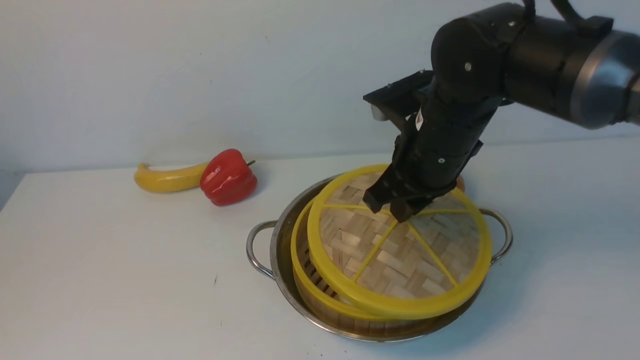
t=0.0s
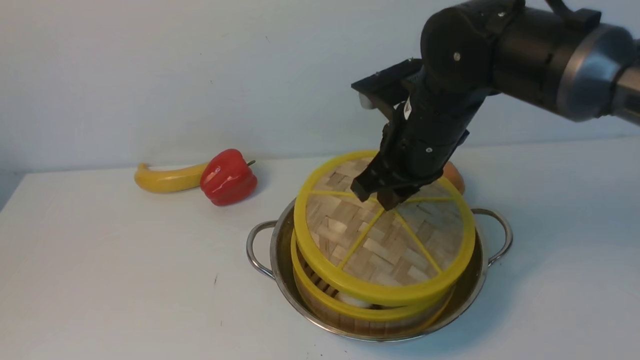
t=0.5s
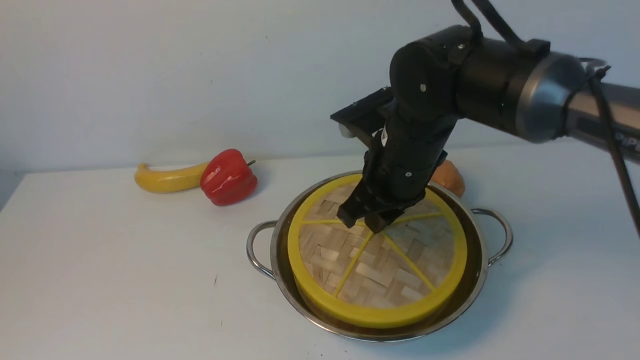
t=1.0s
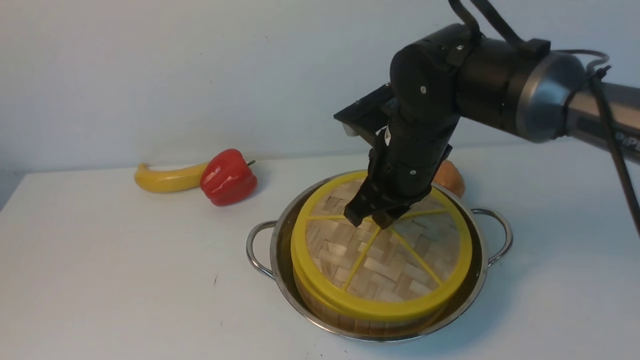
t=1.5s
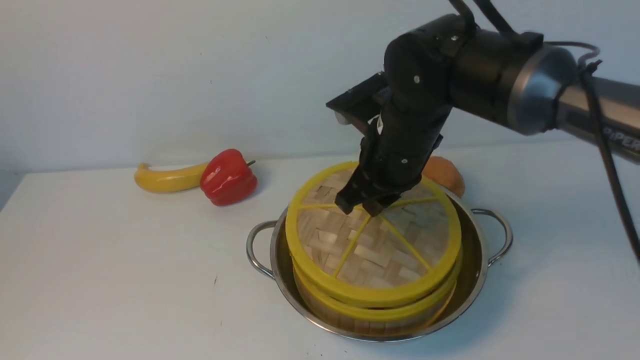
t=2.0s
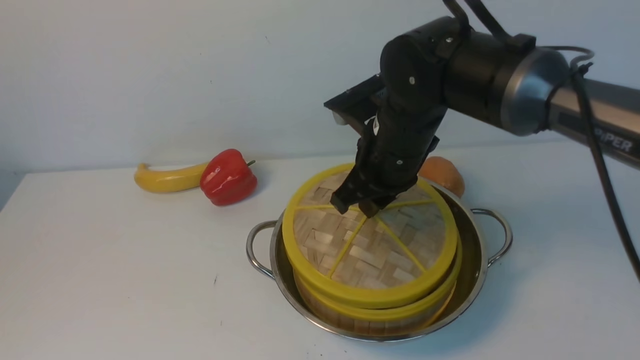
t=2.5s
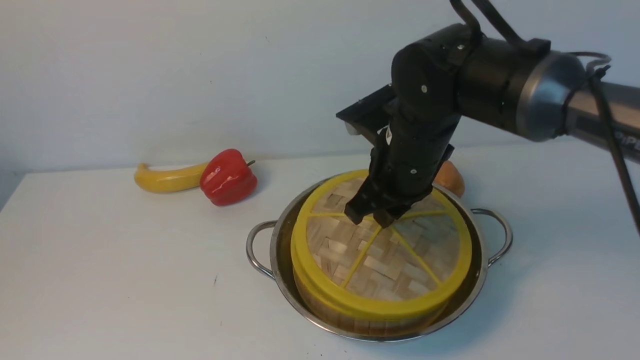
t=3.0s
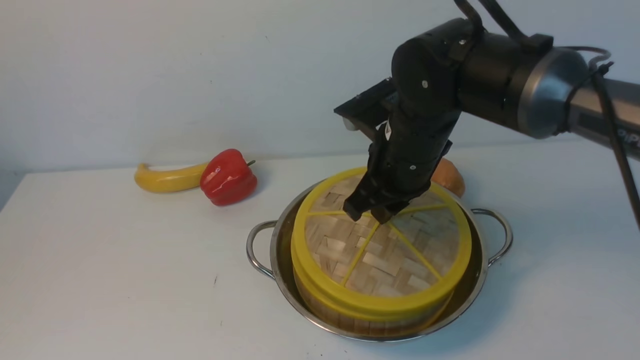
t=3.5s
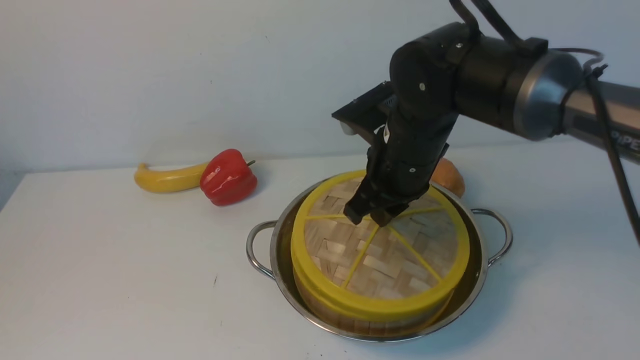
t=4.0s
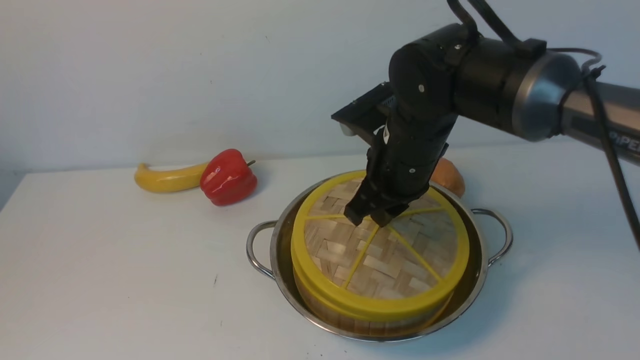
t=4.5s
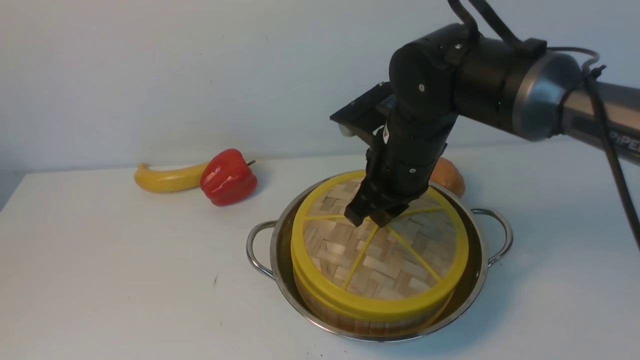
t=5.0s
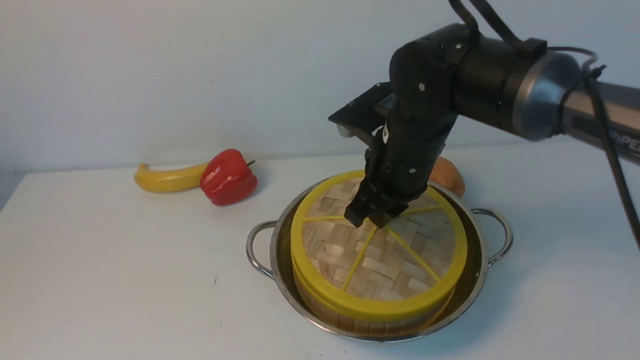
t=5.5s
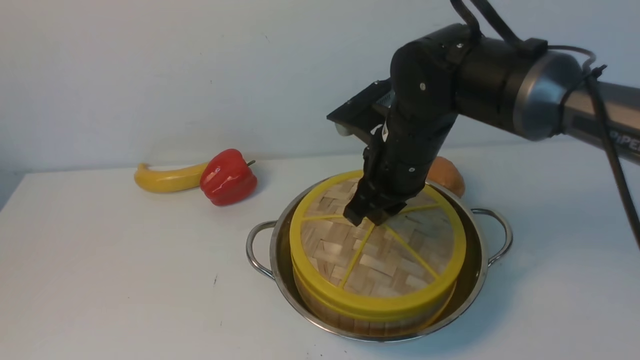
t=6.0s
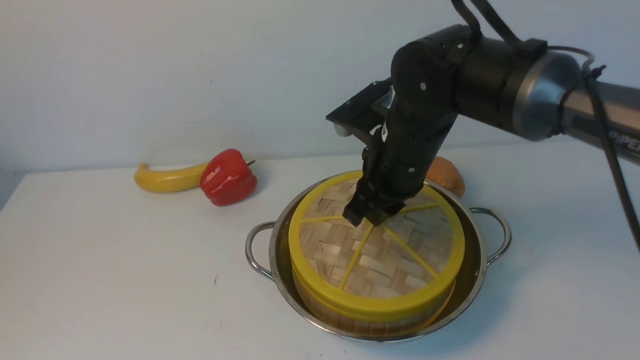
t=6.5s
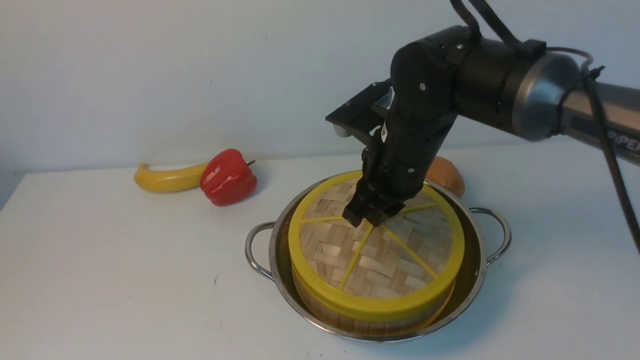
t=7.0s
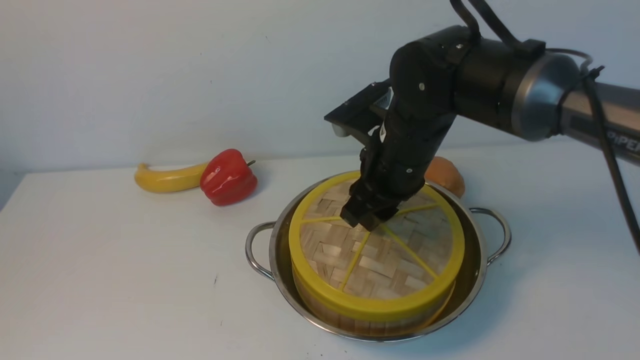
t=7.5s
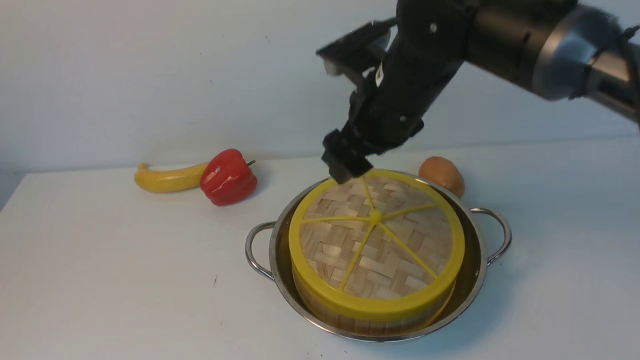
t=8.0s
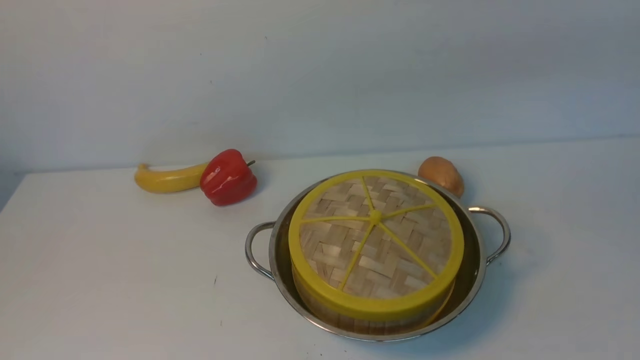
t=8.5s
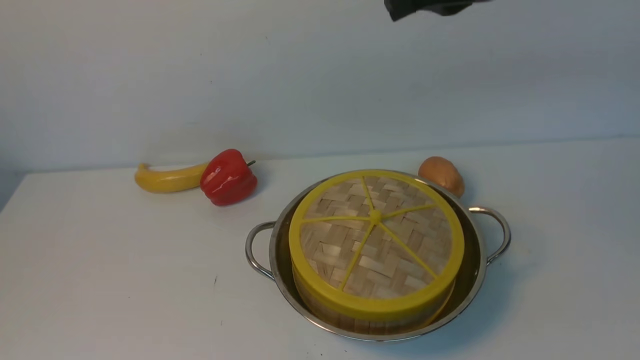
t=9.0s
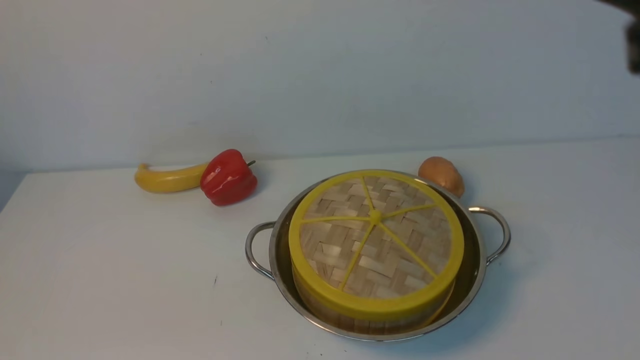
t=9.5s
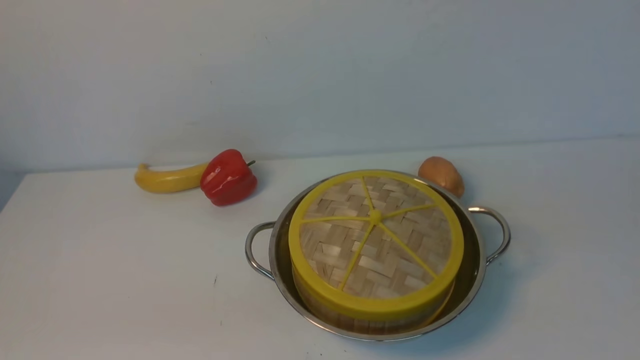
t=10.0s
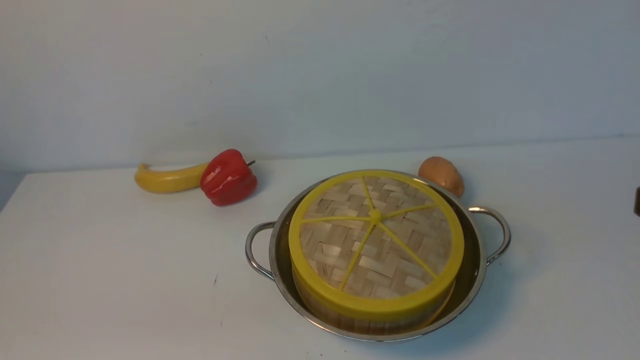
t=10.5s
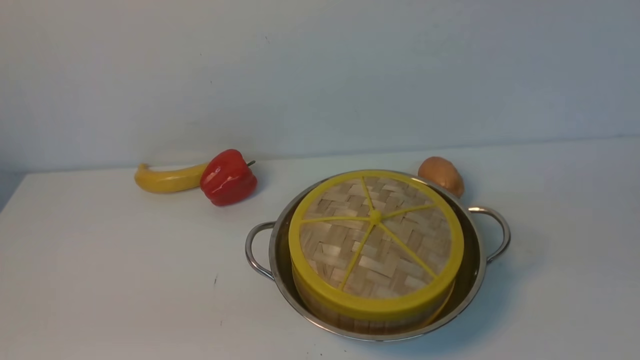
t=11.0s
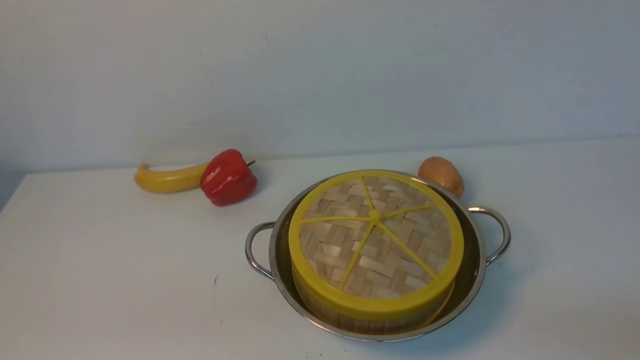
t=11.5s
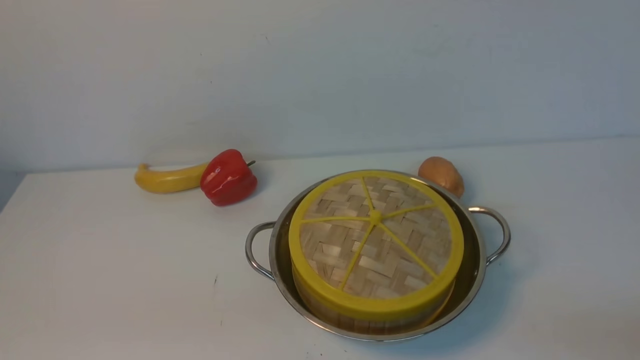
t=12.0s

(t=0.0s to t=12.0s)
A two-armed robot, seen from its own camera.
Task of the whole recording: place the steamer in the pot on the white table, and put the lid on the steamer.
Step, t=0.0s - t=7.5s: use the right arm to place the steamer lid on the steamer.
t=0.0s - t=2.0s: The grippers stay close to where they were, moving slightly.
t=2.0s - t=4.0s: Both grippers stay about where they are.
t=4.0s - t=6.0s: Both grippers stay about where they are.
t=6.0s - t=8.0s: The right gripper opens its fingers.
t=8.0s - t=10.0s: The left gripper goes about 10 cm downward. Meanwhile the right gripper shifts roughly 30 cm backward and to the right, and closes up.

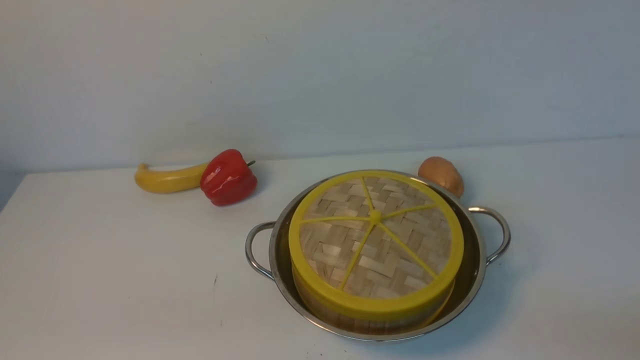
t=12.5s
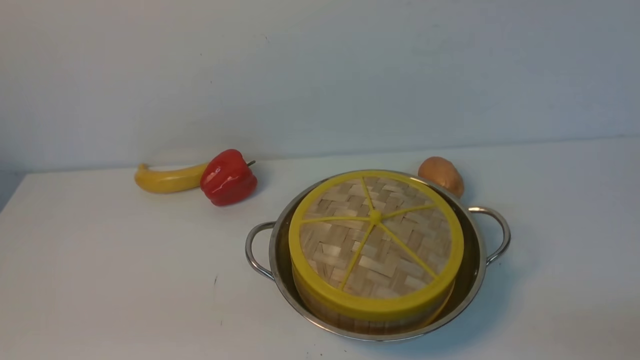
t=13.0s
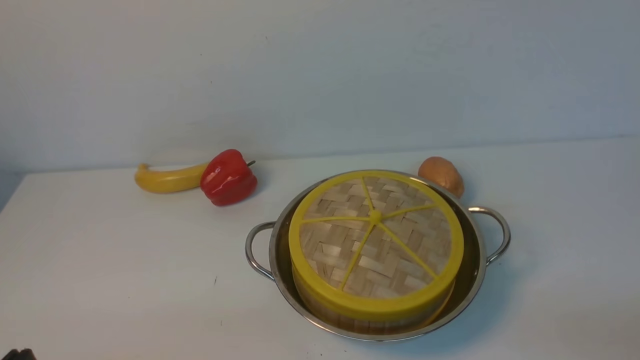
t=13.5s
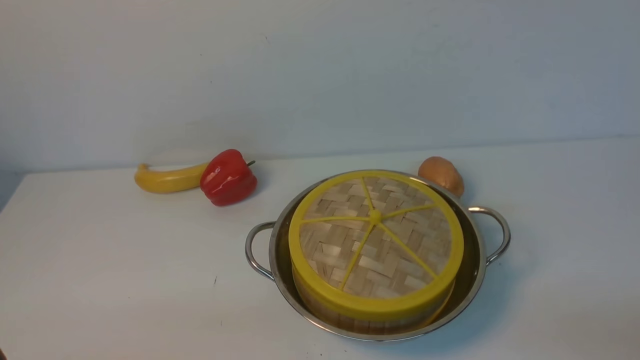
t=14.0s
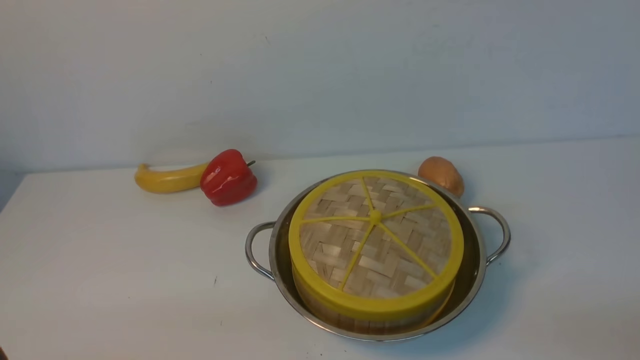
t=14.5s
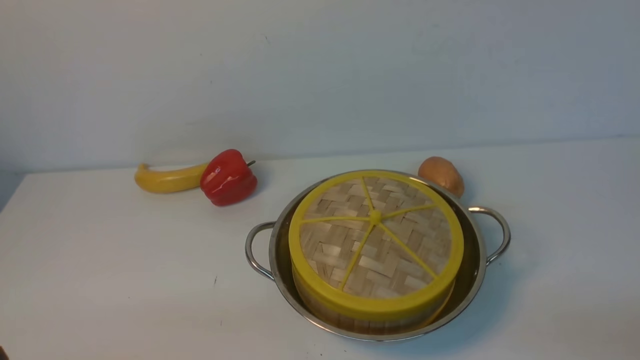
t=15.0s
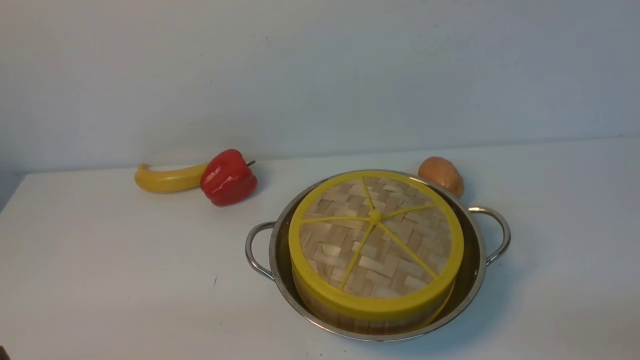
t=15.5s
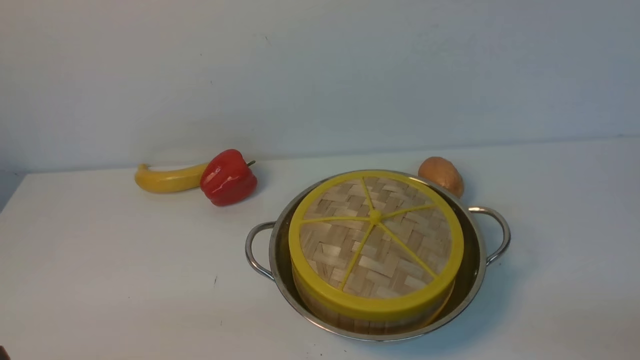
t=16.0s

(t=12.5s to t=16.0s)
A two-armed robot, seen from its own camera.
Task of the whole recording: place the steamer in the pot on the white table, and put the lid on the steamer.
t=14.5s - t=16.0s: Both grippers stay about where they are.
